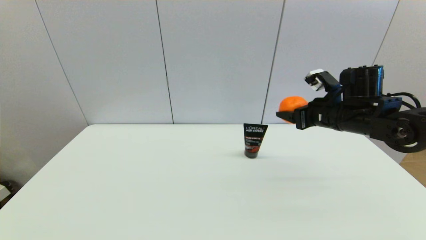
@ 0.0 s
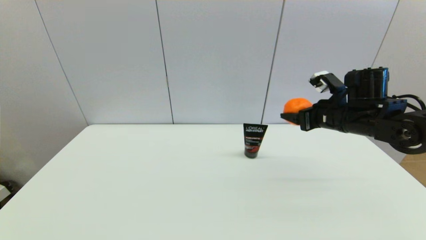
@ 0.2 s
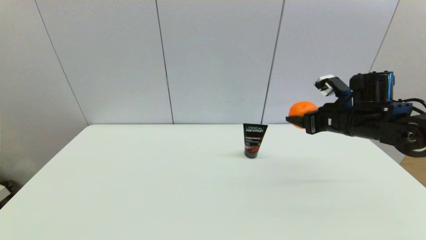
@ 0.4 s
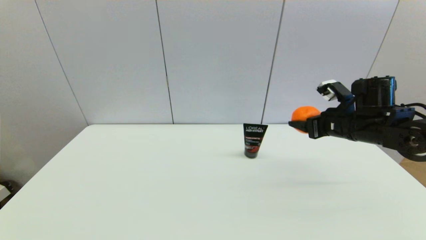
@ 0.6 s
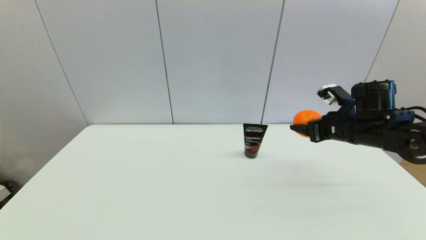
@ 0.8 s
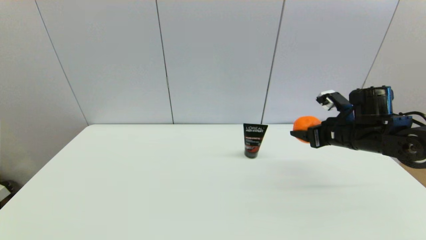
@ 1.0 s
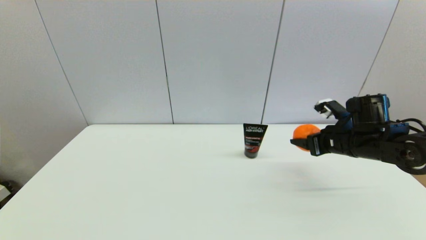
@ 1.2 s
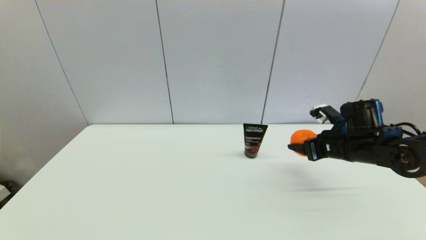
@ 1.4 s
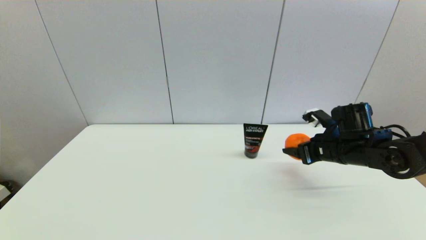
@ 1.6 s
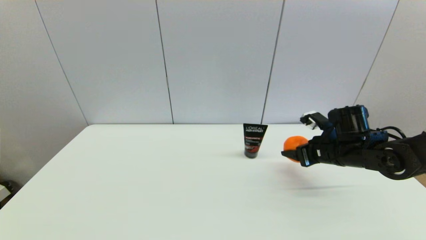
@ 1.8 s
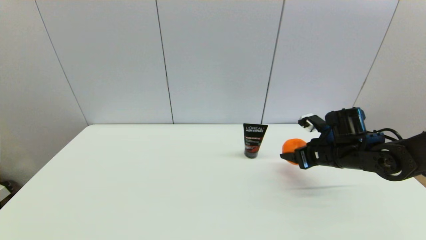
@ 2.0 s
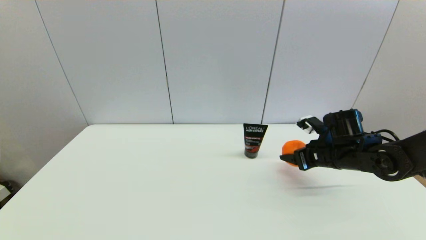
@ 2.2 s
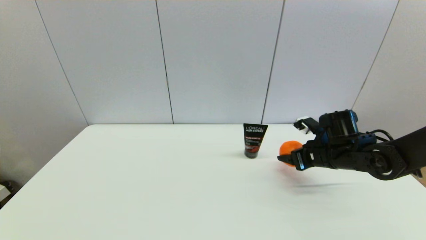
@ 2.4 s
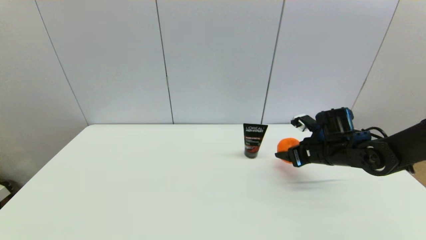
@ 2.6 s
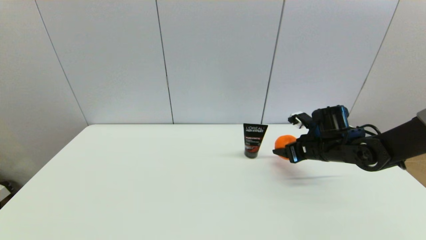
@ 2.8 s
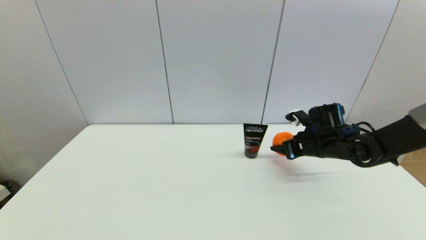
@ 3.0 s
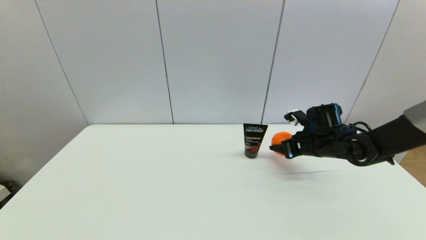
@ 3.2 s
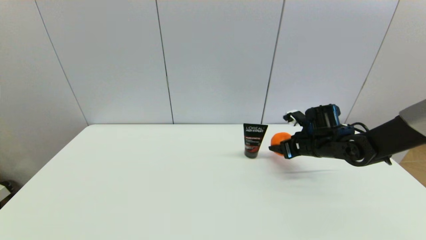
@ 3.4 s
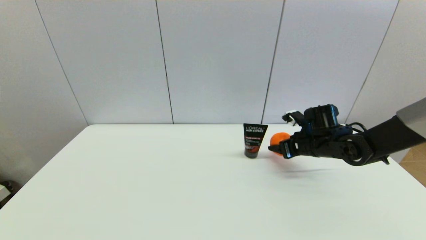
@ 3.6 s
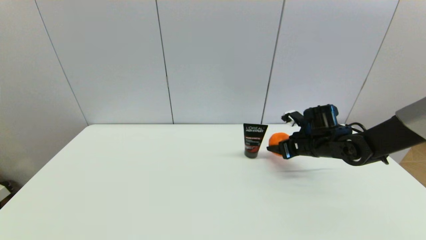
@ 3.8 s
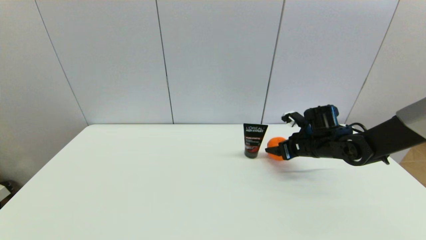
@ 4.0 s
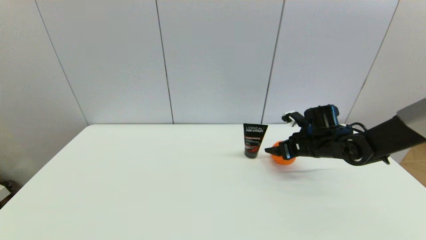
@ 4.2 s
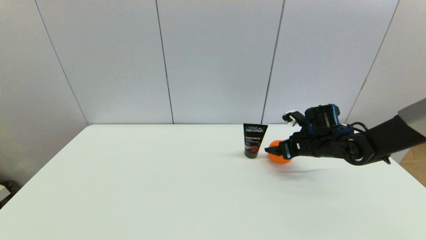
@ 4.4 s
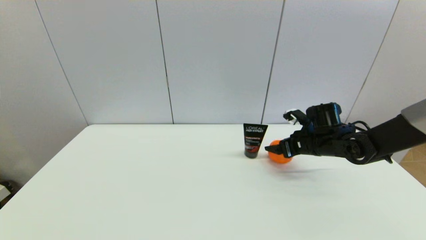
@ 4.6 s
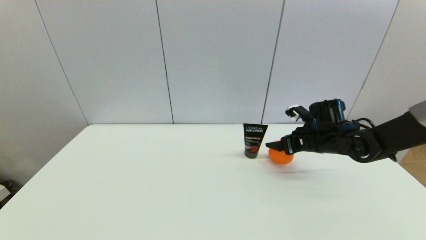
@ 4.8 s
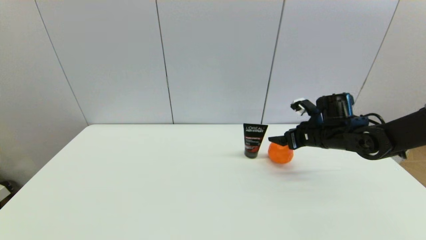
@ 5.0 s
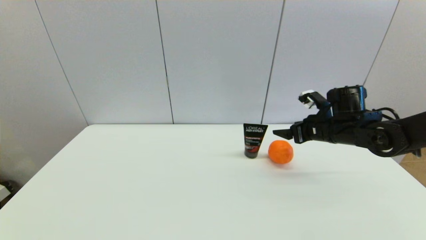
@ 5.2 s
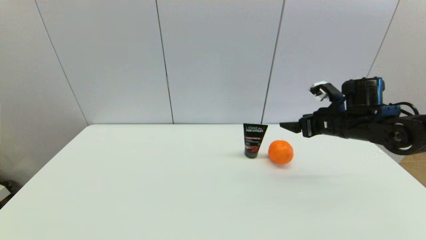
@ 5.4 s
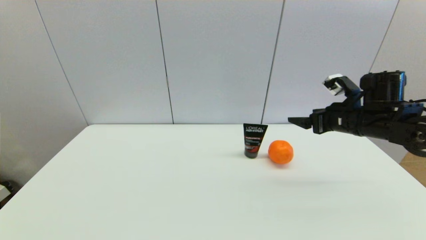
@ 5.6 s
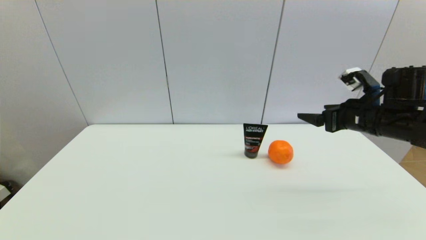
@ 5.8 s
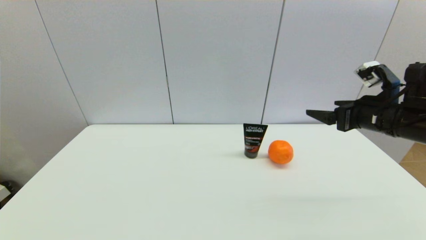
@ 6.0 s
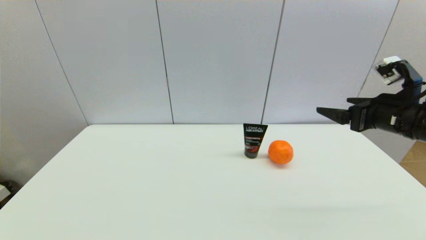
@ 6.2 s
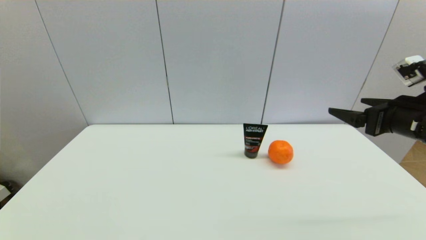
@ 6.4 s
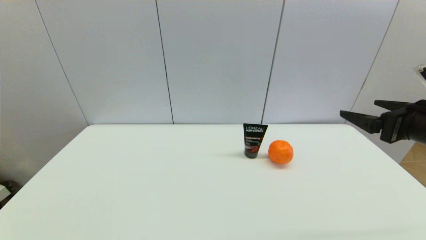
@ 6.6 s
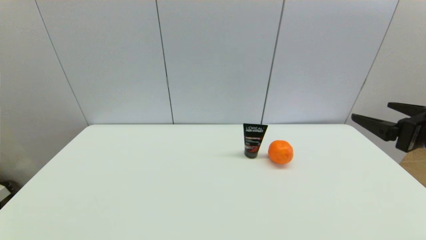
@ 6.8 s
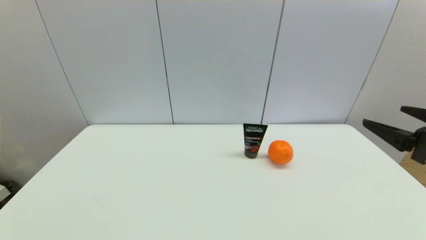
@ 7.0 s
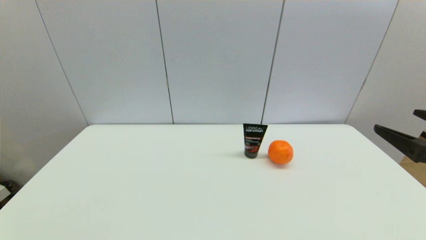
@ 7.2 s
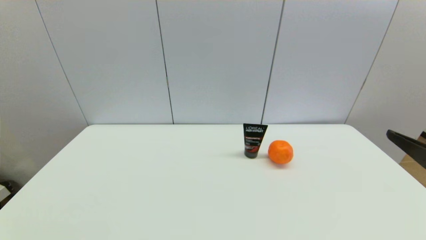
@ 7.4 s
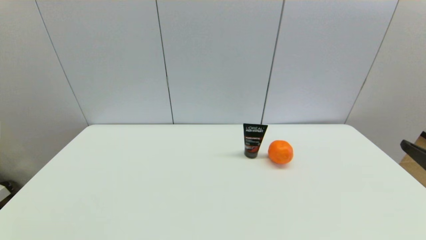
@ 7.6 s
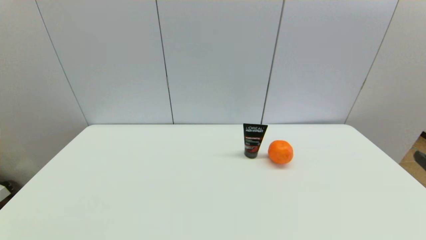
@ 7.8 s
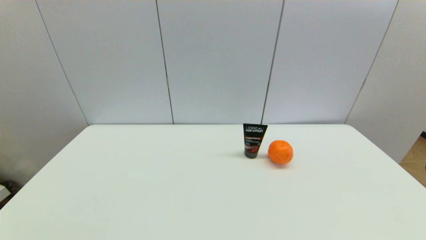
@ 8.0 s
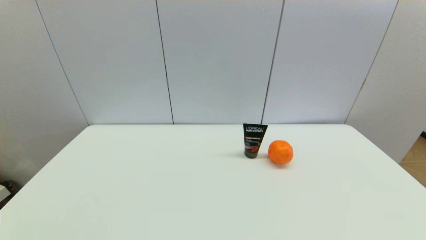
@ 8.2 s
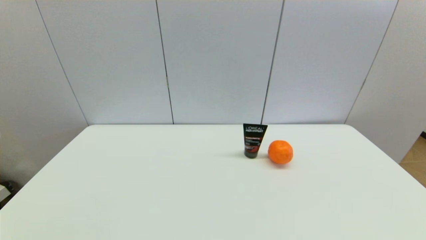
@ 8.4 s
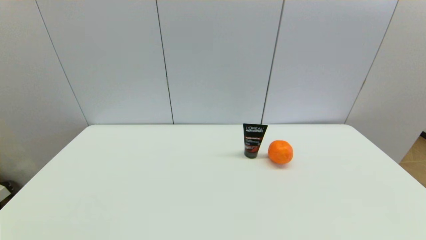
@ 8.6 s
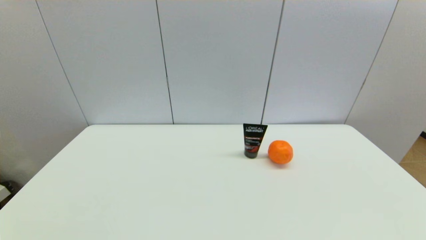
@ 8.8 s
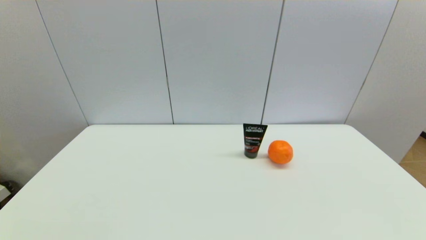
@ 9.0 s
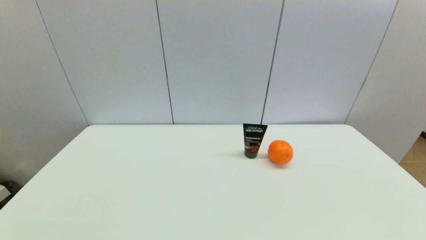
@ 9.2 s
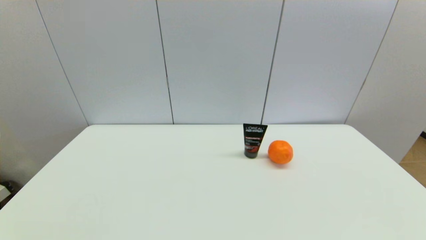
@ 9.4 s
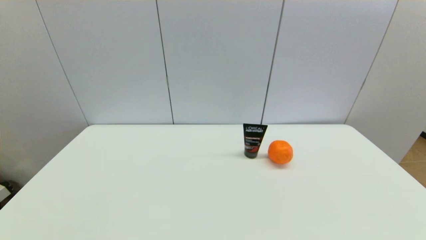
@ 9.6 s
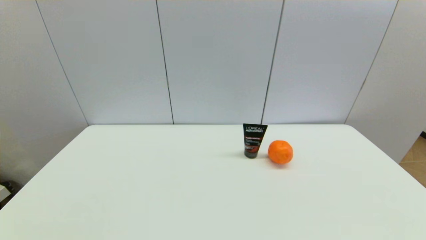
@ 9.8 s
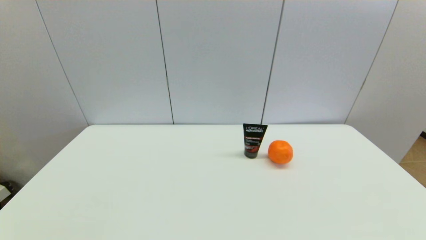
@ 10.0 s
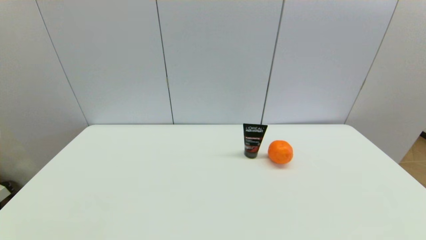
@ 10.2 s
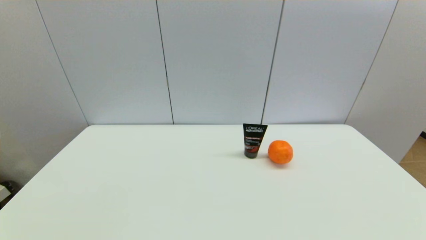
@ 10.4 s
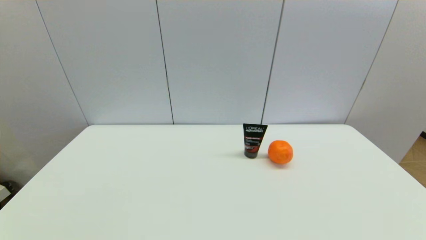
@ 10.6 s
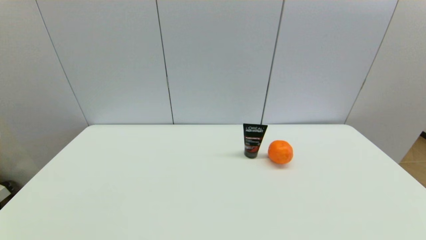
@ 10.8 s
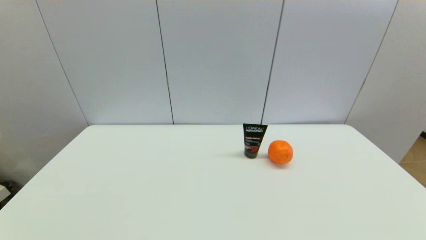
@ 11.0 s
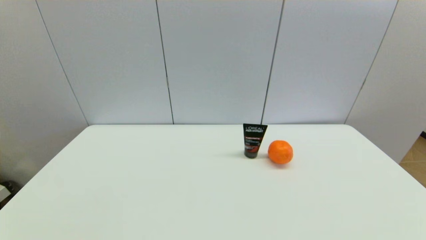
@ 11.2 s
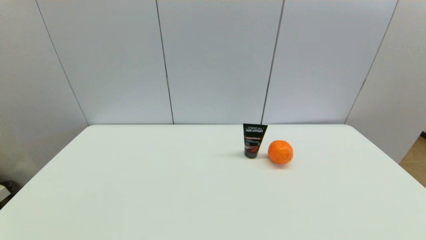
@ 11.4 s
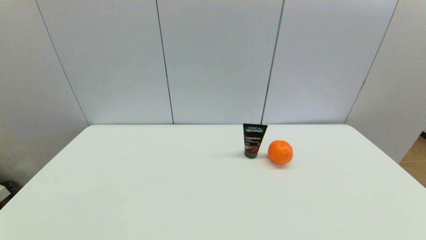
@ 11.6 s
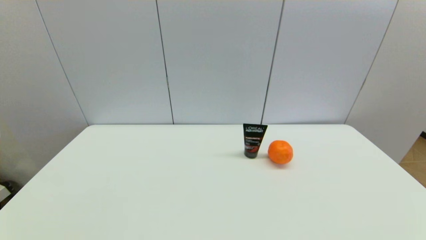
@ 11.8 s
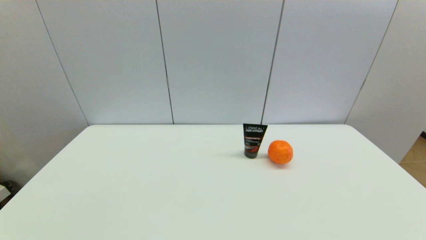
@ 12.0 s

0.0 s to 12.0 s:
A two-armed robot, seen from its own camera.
Step, 0.0 to 4.6 s: Place the orange on the table with right gripper.
0.0 to 1.6 s: The right gripper is displaced downward by roughly 5 cm.
1.6 to 3.0 s: The right gripper changes place by roughly 5 cm.
3.0 to 4.4 s: The right gripper opens.
4.4 to 6.0 s: The right gripper heads upward, backward and to the right, covering about 15 cm.
6.0 to 7.6 s: The right gripper heads backward, covering some 20 cm.

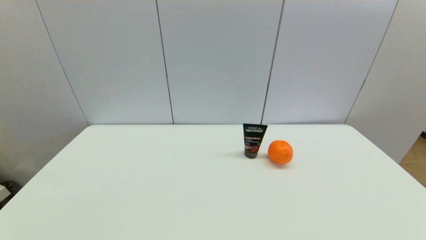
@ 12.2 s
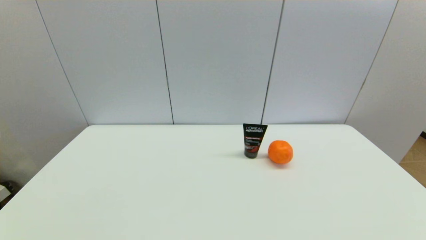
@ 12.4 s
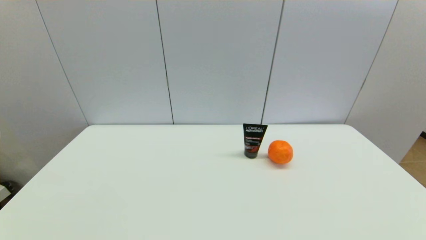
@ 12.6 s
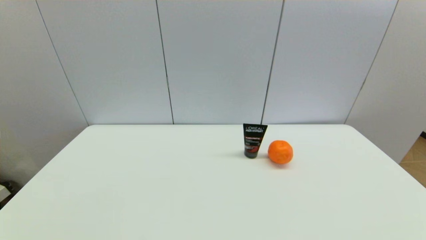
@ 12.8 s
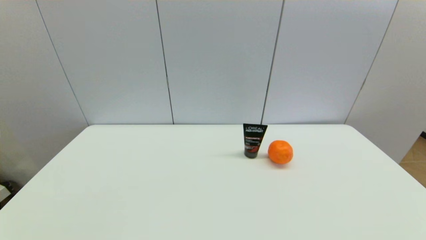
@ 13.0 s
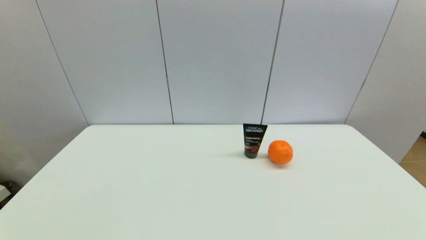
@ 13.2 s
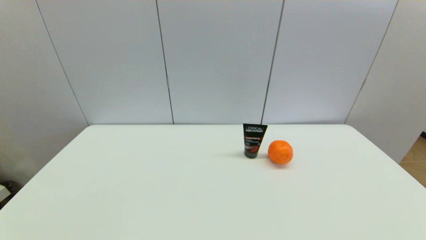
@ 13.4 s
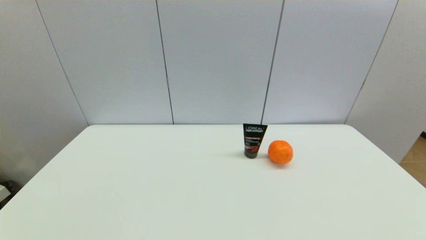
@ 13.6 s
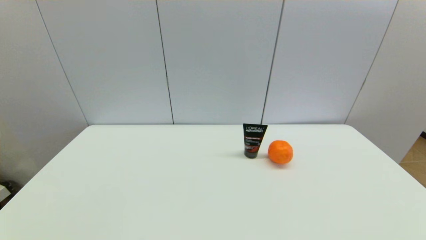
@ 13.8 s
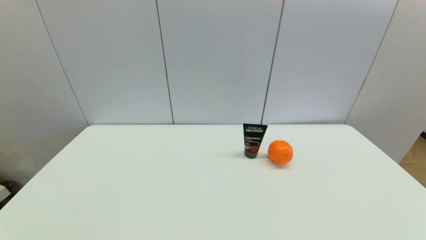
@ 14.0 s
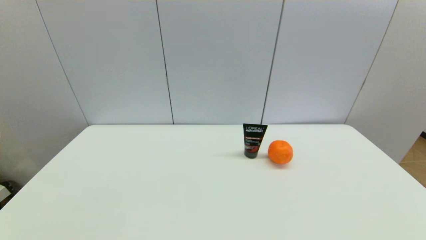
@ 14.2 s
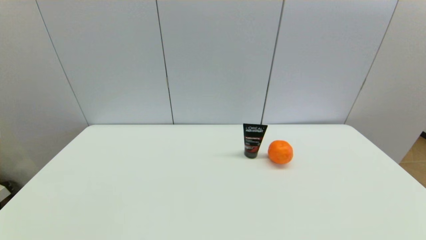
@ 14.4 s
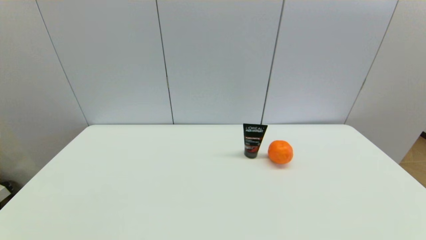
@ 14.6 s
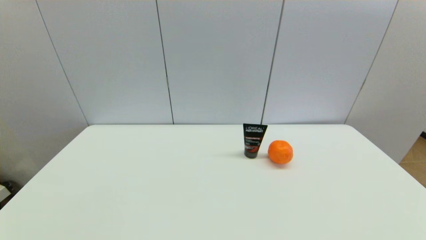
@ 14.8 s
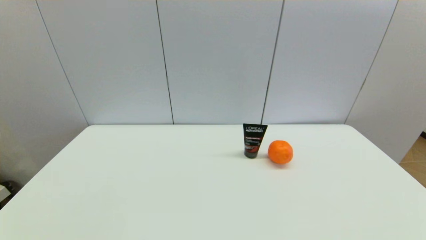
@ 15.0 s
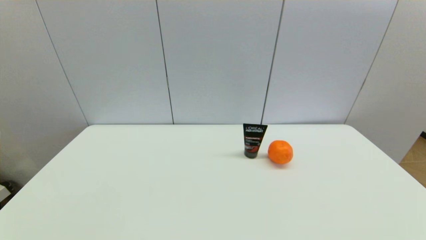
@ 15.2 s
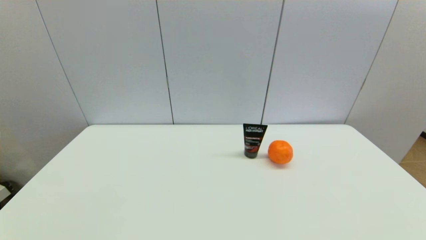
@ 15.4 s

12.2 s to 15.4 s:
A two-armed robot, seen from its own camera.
12.2 to 15.4 s: Both grippers stay put.
